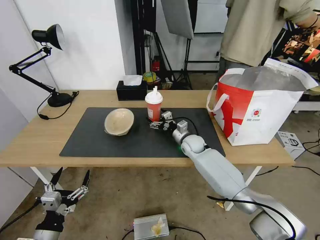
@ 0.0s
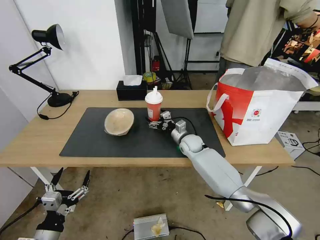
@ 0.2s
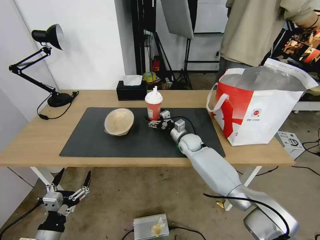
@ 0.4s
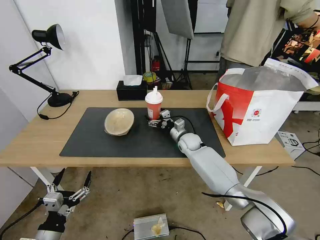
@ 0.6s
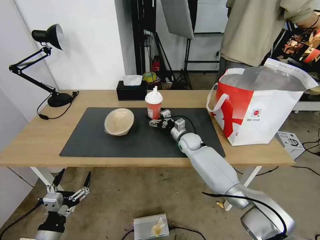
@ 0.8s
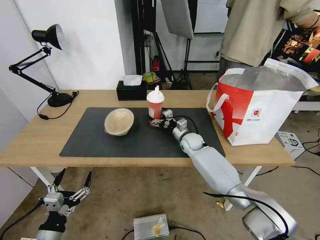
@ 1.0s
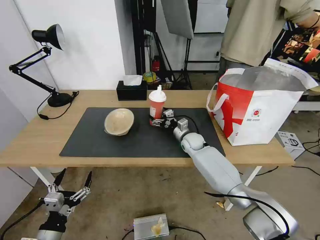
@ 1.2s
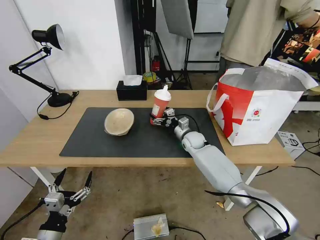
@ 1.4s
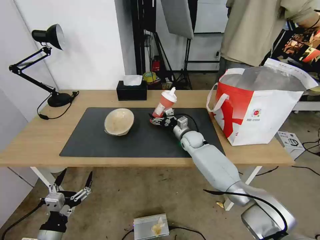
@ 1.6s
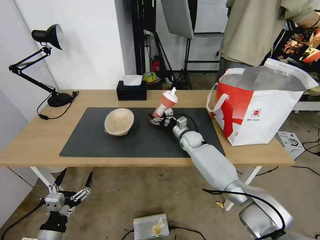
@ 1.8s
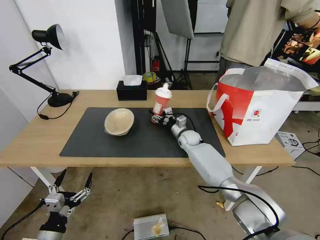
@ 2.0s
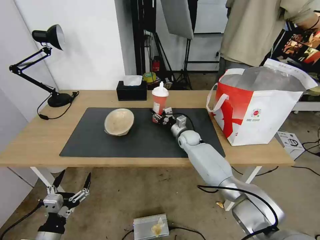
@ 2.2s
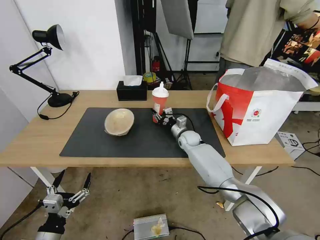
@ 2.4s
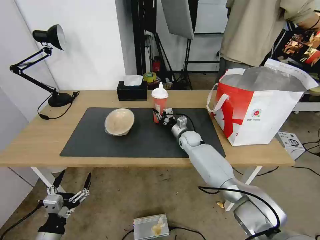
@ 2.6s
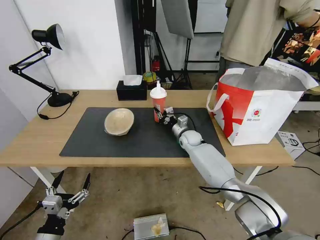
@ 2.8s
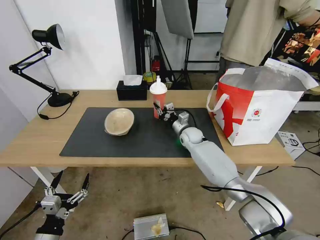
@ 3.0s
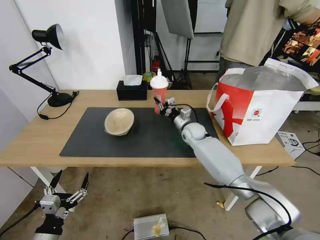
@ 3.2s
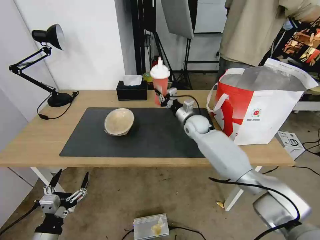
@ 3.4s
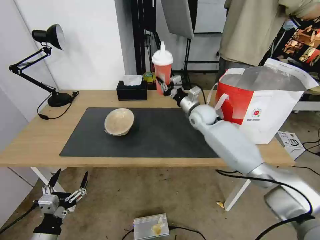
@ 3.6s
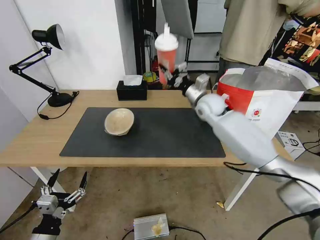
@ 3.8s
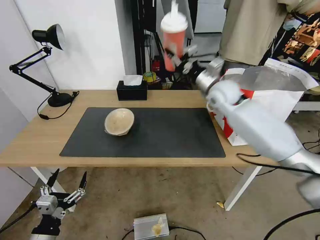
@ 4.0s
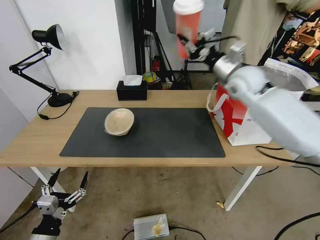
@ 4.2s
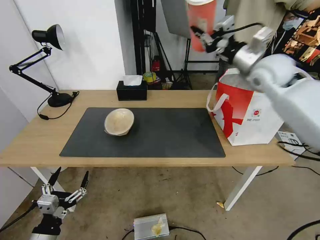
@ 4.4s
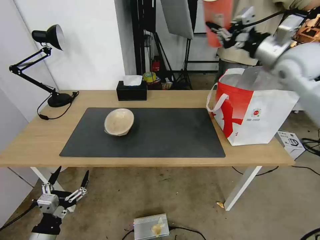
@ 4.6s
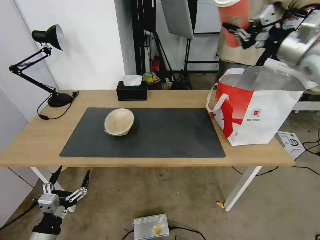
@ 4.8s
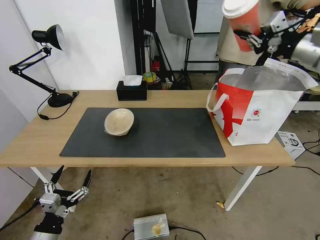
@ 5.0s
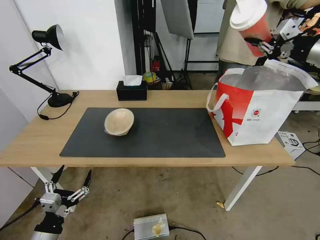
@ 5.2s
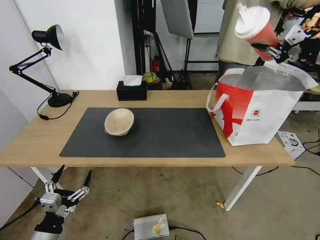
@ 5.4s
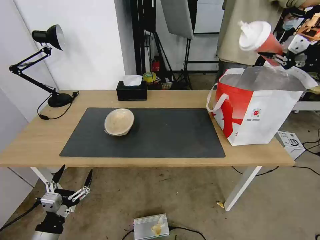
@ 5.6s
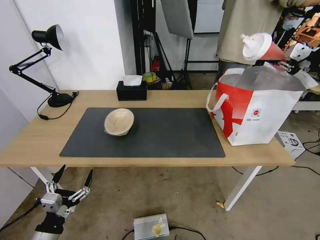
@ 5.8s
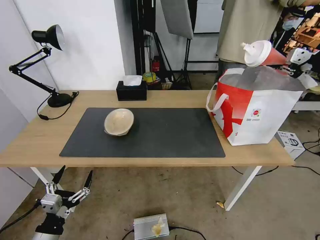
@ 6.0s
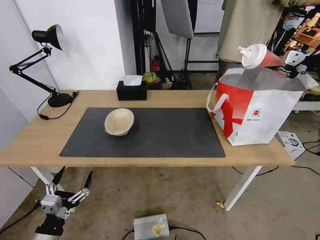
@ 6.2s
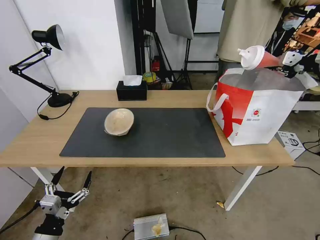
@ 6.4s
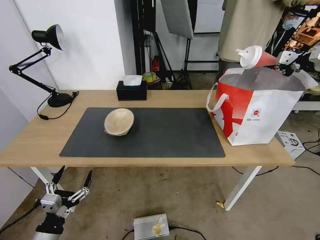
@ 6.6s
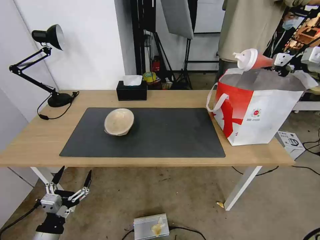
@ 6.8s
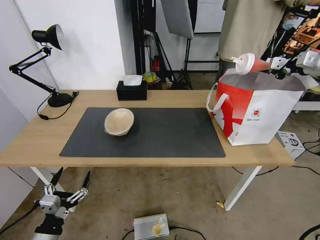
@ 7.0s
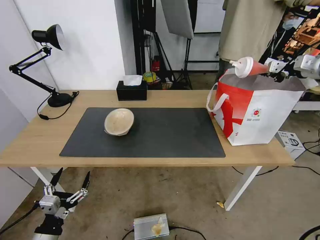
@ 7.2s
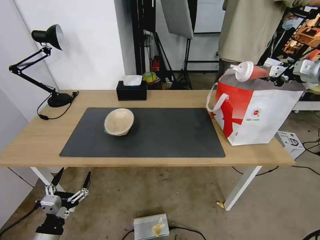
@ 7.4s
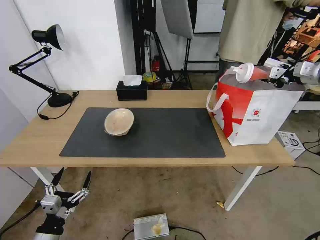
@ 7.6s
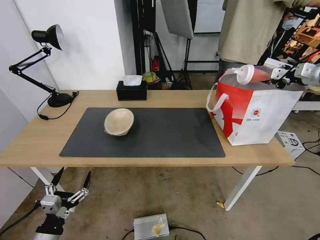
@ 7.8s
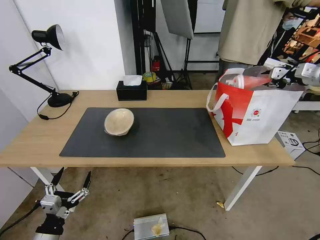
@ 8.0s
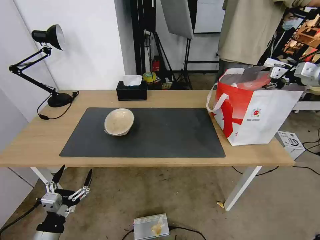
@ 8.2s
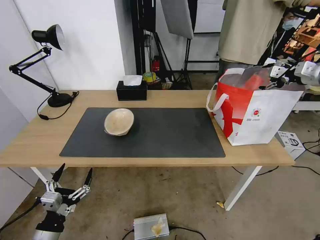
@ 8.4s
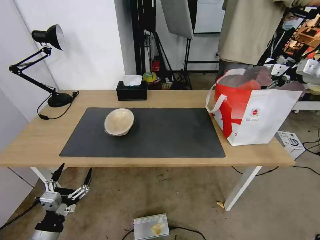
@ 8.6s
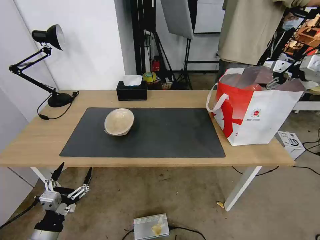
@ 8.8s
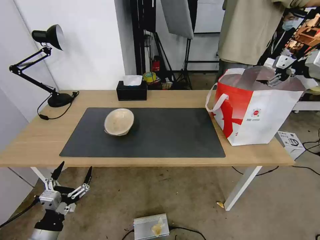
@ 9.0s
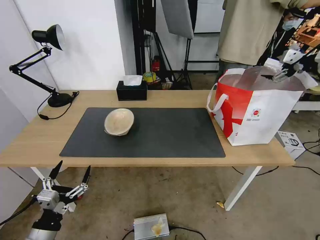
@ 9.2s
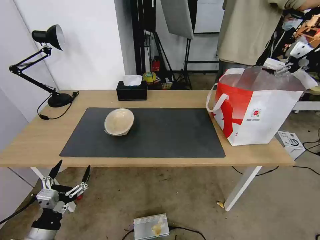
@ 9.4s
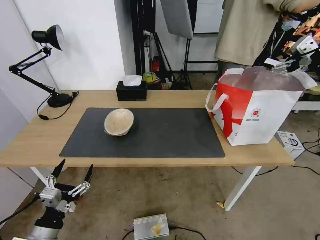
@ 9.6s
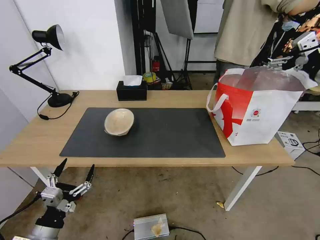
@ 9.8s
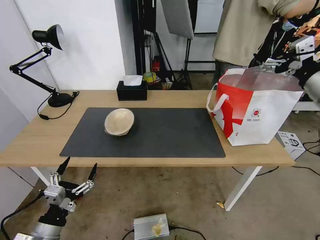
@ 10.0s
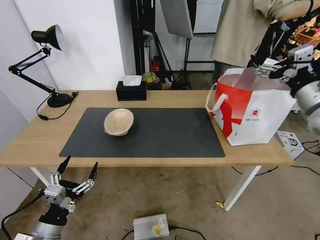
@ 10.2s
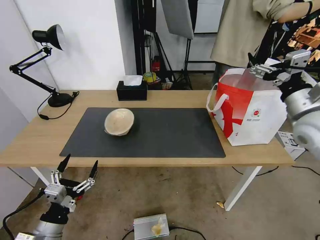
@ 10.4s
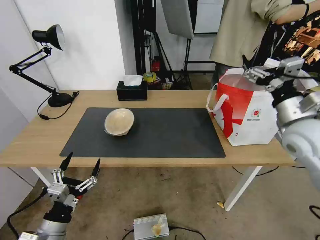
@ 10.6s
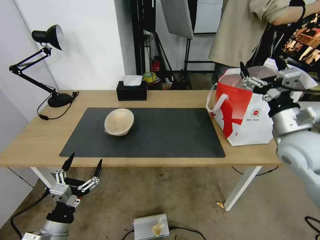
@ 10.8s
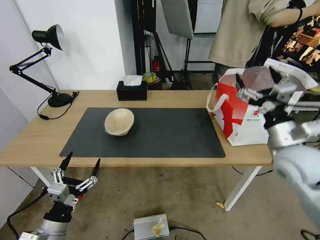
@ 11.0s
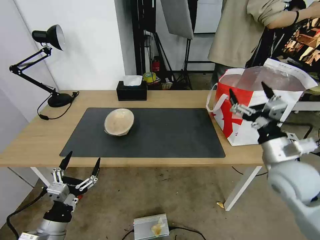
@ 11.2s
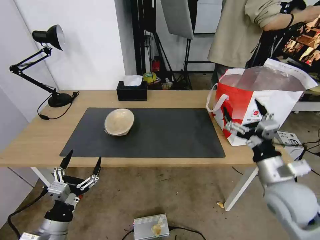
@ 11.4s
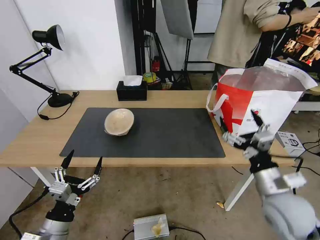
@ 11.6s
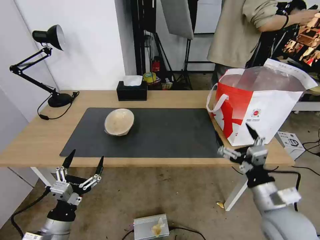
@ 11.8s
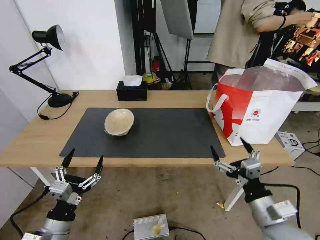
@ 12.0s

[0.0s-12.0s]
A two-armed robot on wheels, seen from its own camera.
Task of the whole recording: Pick up the trash from the table and place it into the takeout bag.
0.0s to 1.6s: There are only small adjustments of the grippers.
1.6s to 3.0s: The right gripper closes.
3.0s to 4.4s: The right gripper goes approximately 35 cm upward and to the right.
4.4s to 6.0s: The right gripper travels to the right by some 20 cm.
6.0s to 7.6s: The right gripper shifts about 10 cm forward and downward.
7.6s to 9.0s: The right gripper opens up.
9.0s to 10.4s: The right gripper goes roughly 25 cm to the left, backward and downward.
10.4s to 12.0s: The right gripper moves backward, downward and to the left, roughly 30 cm.

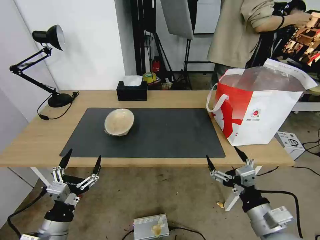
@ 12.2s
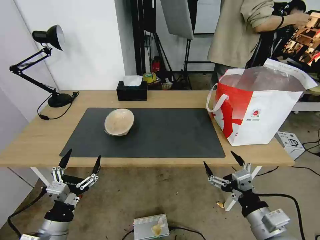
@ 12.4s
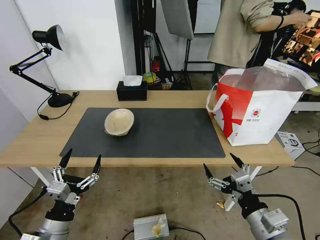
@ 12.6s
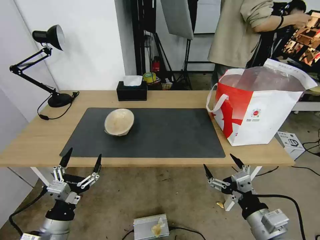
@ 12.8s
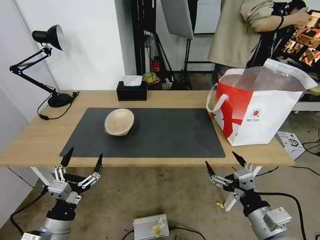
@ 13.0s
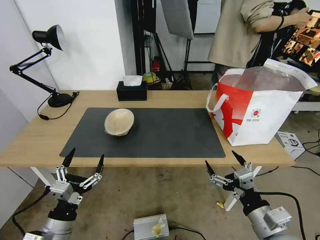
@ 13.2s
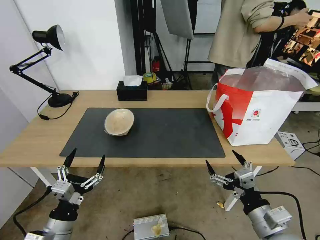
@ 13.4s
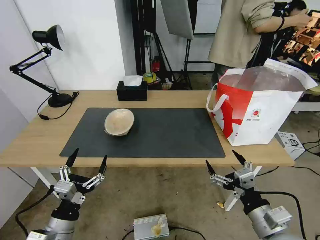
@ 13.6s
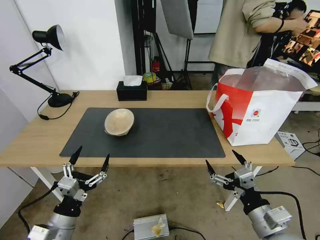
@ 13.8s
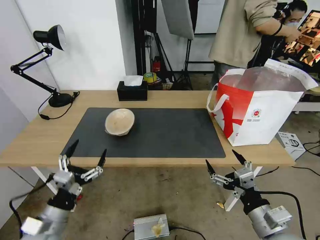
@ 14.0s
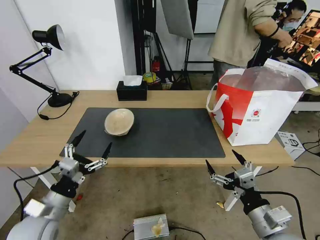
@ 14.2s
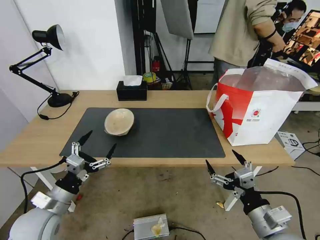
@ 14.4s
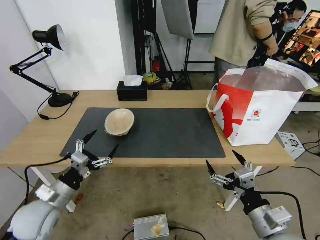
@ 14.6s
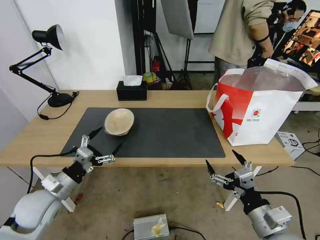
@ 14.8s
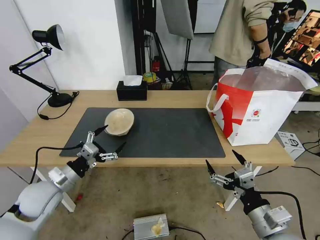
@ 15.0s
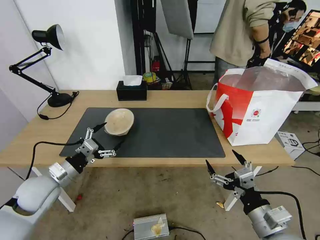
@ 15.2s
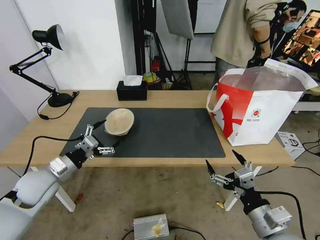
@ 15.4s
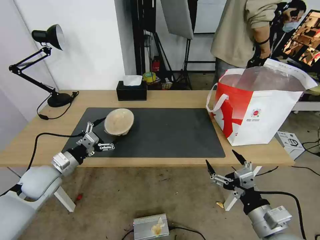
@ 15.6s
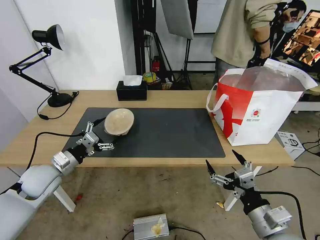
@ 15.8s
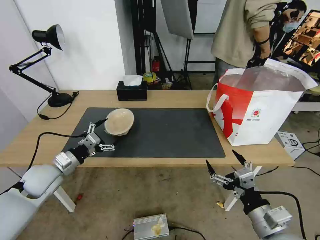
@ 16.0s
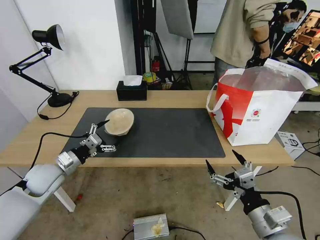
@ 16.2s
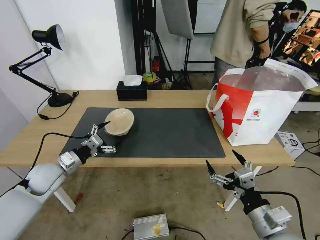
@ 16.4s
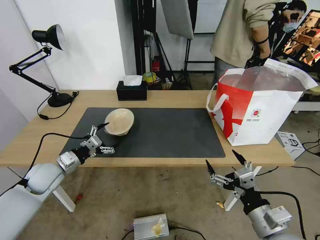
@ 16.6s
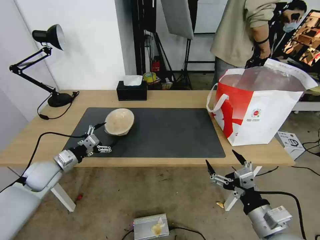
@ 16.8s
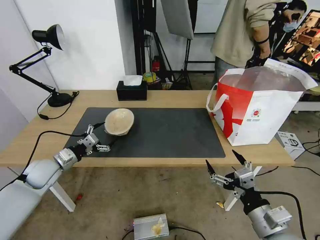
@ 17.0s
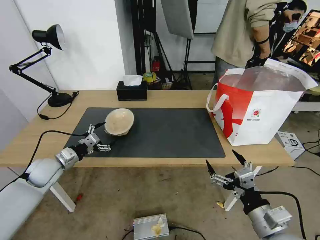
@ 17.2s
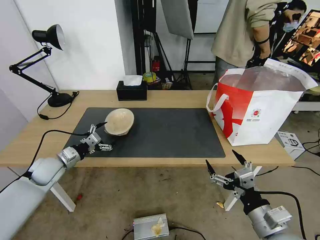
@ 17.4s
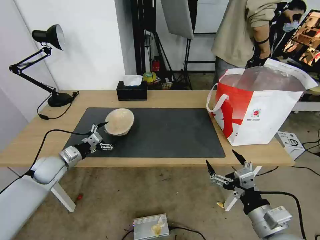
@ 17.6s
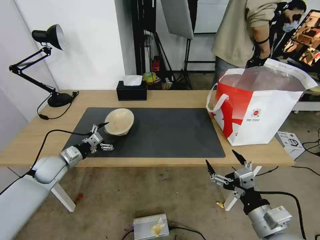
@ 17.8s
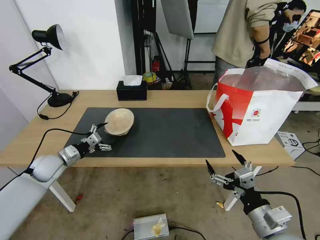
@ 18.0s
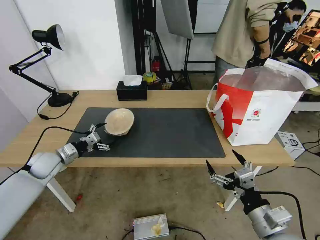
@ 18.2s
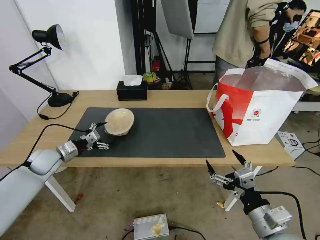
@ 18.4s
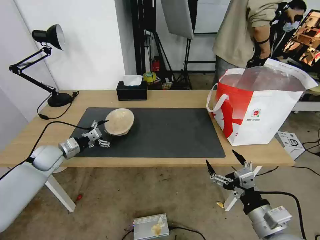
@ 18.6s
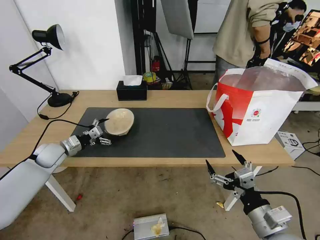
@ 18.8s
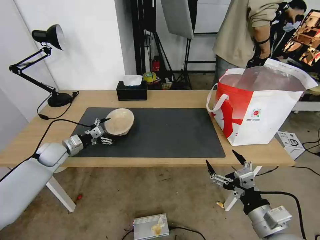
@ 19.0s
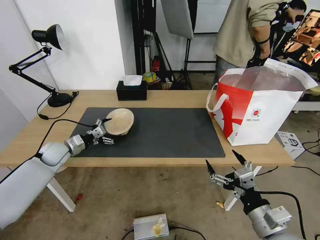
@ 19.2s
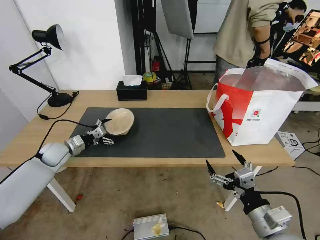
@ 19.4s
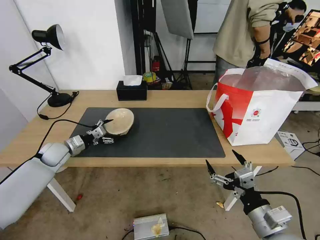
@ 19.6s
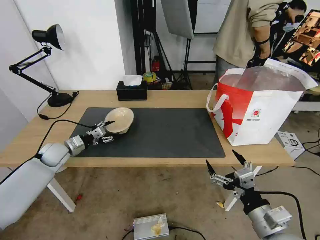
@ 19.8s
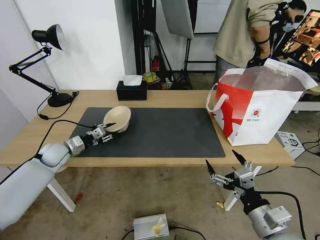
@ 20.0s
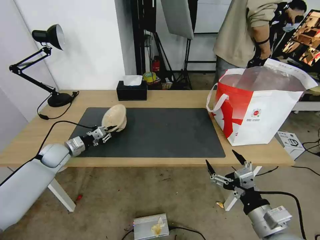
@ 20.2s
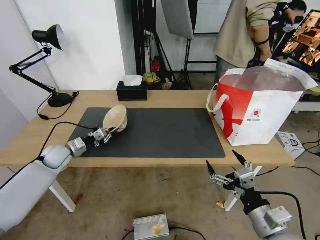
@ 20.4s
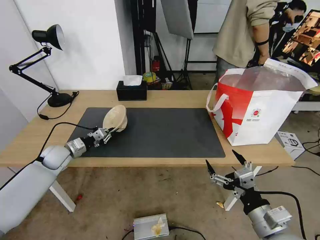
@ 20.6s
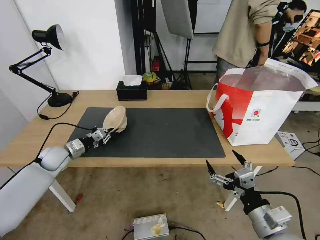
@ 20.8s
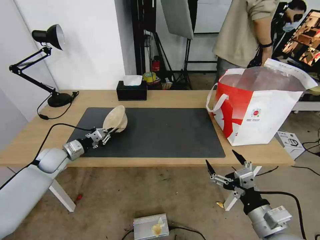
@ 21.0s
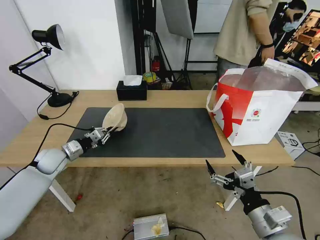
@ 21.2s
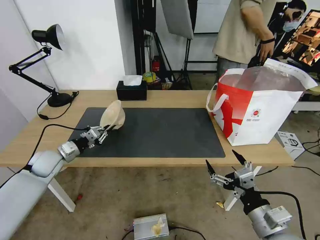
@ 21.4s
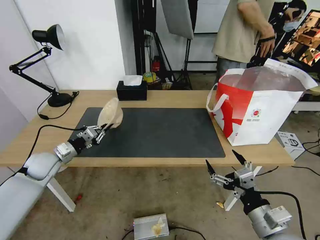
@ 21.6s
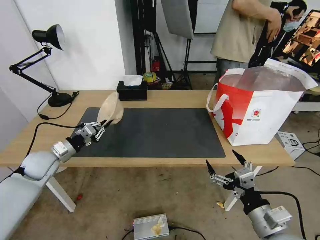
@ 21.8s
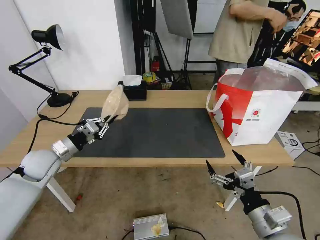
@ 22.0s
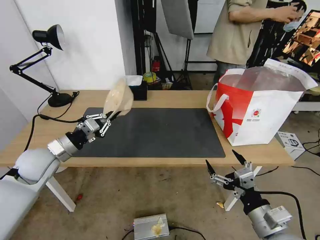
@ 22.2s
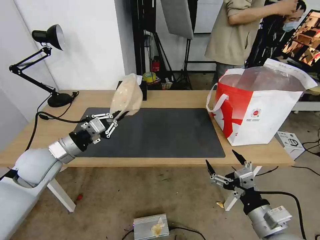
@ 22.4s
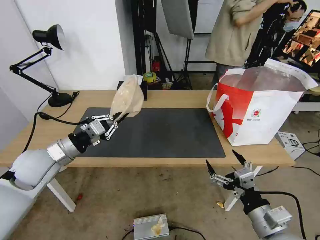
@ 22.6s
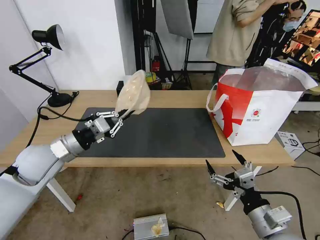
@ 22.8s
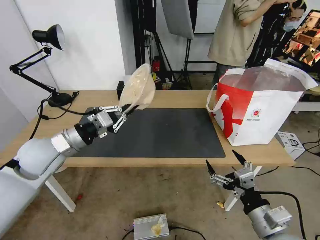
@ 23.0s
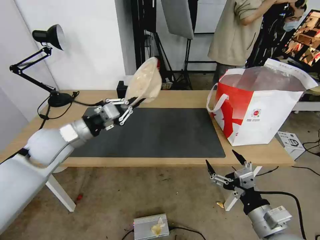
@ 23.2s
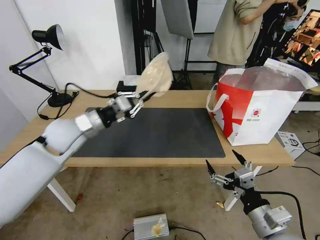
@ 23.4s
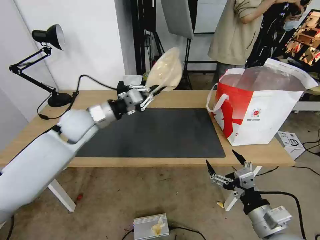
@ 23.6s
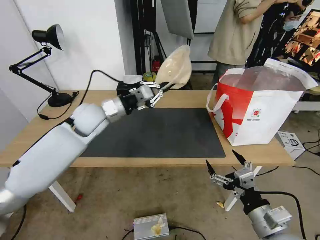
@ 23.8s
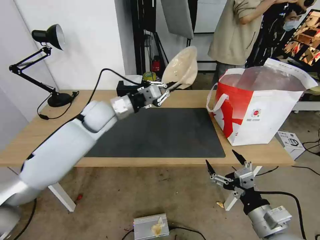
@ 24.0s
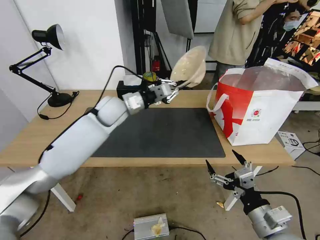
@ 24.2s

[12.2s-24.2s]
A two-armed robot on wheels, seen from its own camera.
Task of the whole recording: Pick up the trash from the table and place it into the takeout bag.
12.2s to 13.8s: There are only small adjustments of the grippers.
13.8s to 15.2s: The left gripper heads forward, to the left and upward, covering approximately 15 cm.
15.2s to 16.6s: The left gripper shifts approximately 5 cm forward.
16.6s to 18.2s: The left gripper shifts roughly 5 cm forward.
18.2s to 19.8s: The left gripper closes.
19.8s to 21.2s: The left gripper closes up.
21.2s to 22.6s: The left gripper heads upward, backward and to the right, covering roughly 15 cm.
22.6s to 24.2s: The left gripper goes approximately 25 cm forward and to the right.
